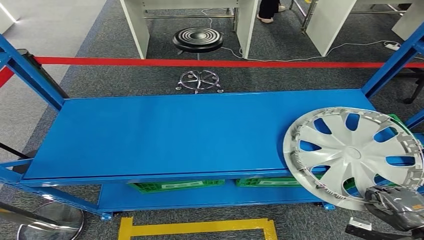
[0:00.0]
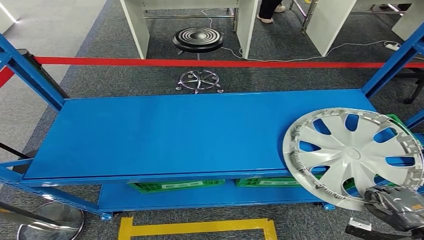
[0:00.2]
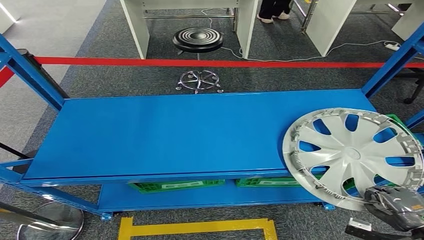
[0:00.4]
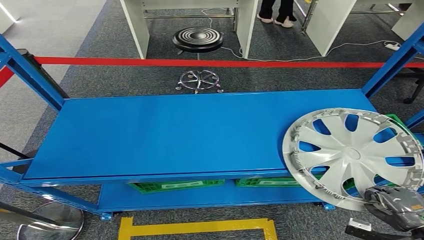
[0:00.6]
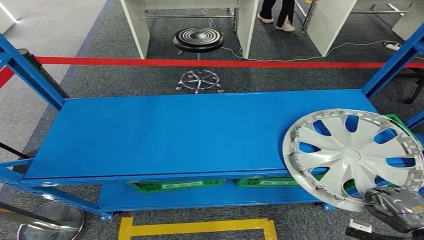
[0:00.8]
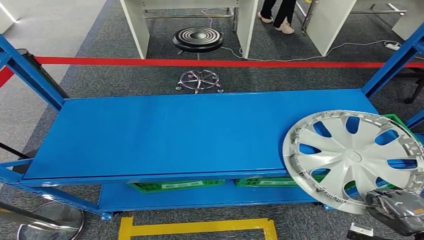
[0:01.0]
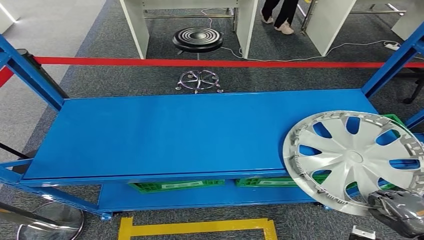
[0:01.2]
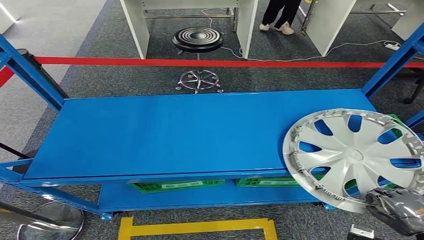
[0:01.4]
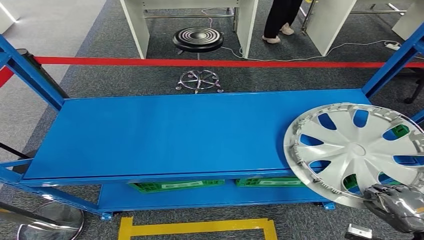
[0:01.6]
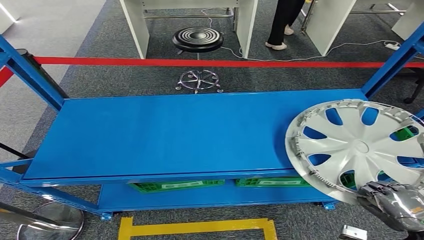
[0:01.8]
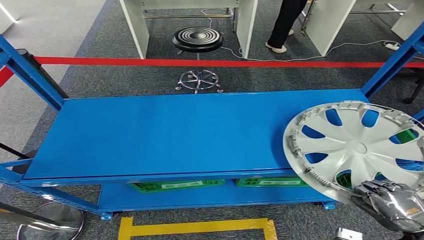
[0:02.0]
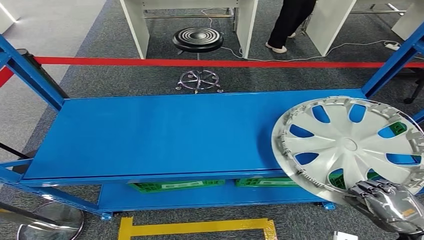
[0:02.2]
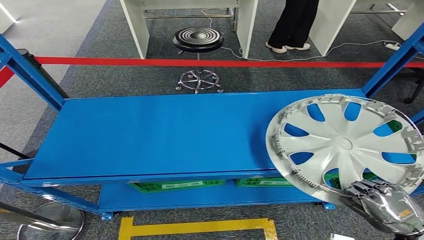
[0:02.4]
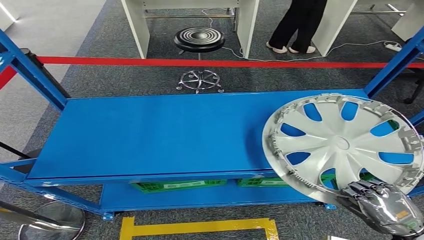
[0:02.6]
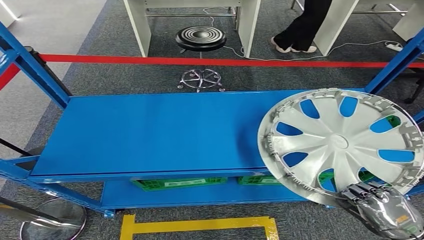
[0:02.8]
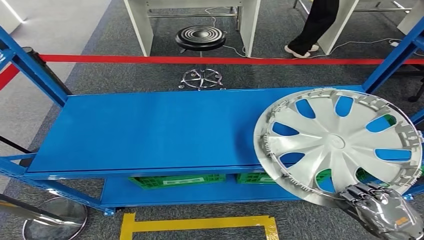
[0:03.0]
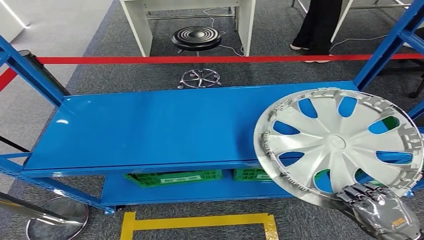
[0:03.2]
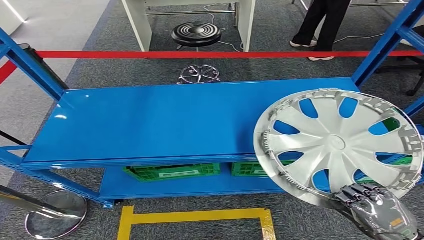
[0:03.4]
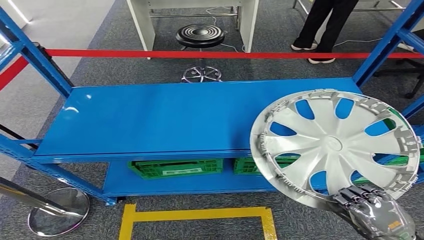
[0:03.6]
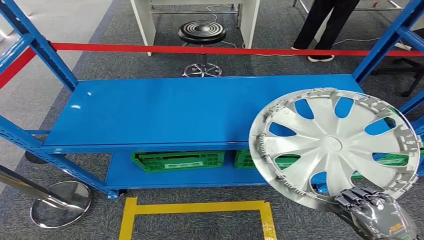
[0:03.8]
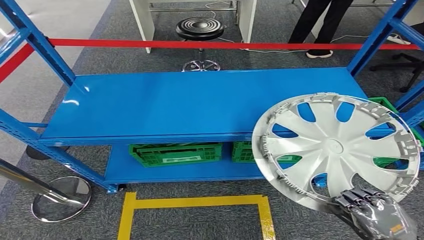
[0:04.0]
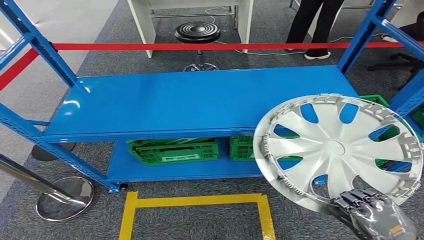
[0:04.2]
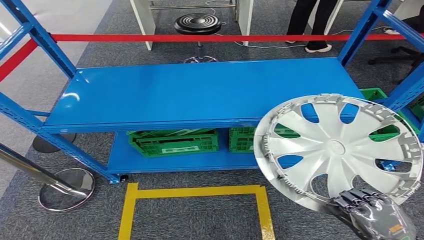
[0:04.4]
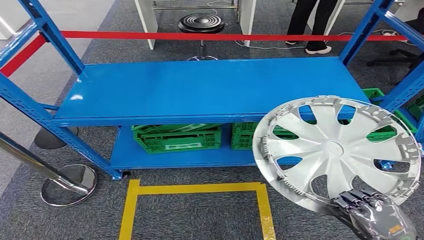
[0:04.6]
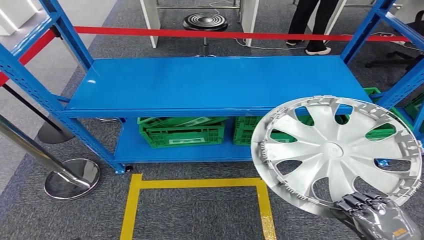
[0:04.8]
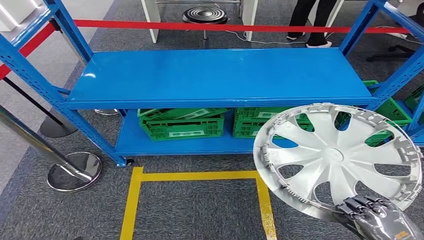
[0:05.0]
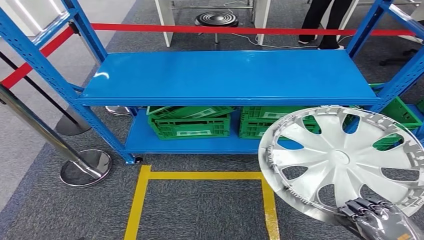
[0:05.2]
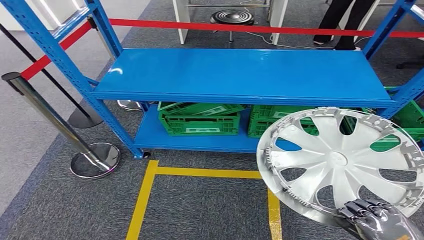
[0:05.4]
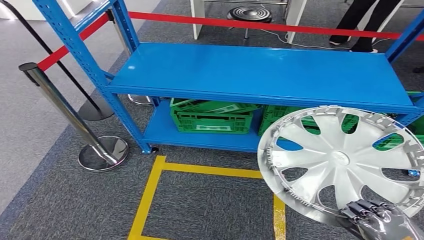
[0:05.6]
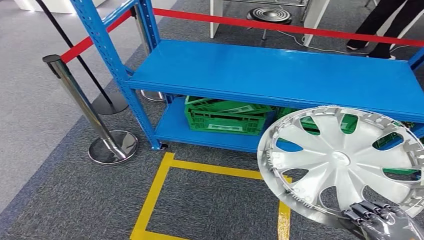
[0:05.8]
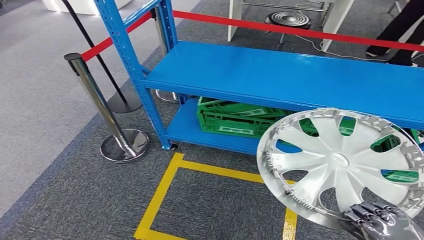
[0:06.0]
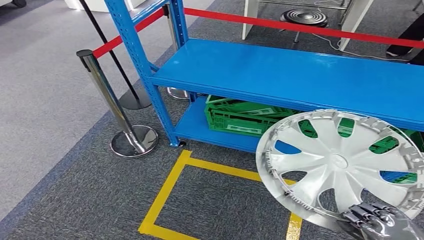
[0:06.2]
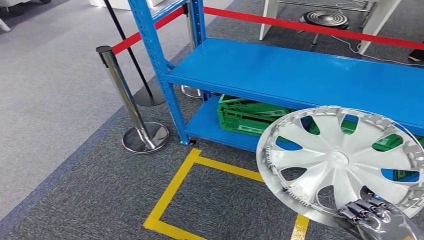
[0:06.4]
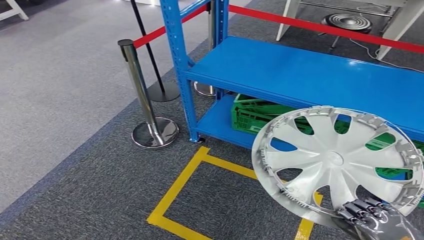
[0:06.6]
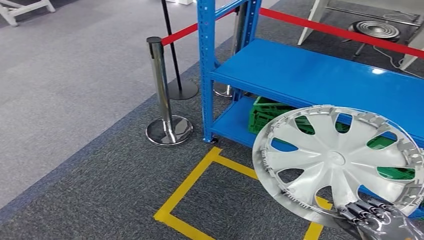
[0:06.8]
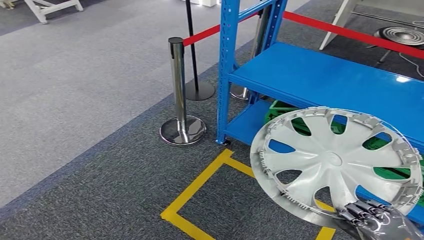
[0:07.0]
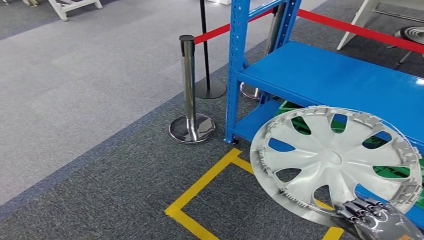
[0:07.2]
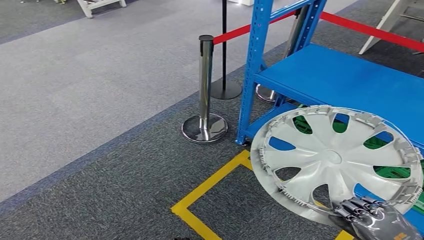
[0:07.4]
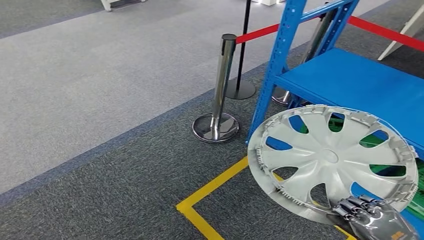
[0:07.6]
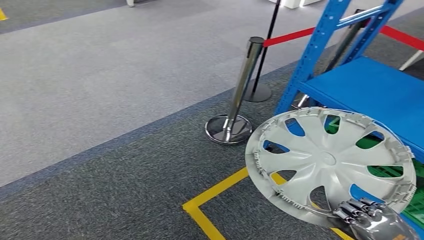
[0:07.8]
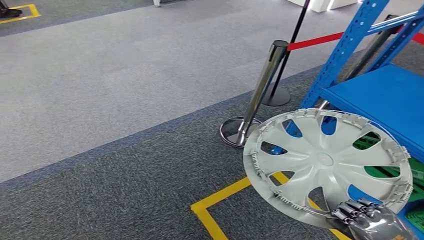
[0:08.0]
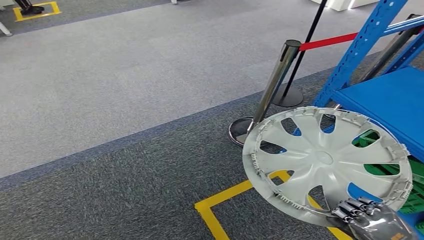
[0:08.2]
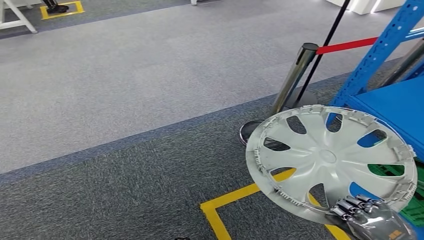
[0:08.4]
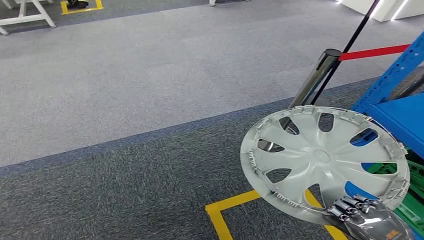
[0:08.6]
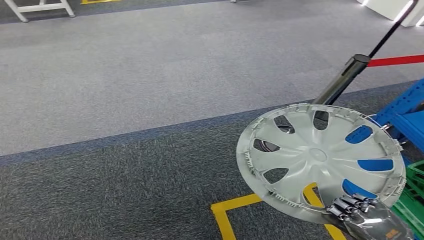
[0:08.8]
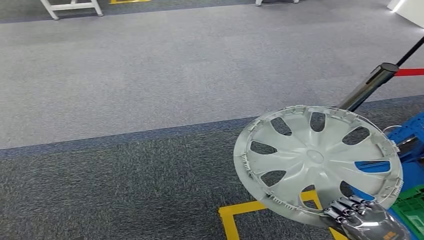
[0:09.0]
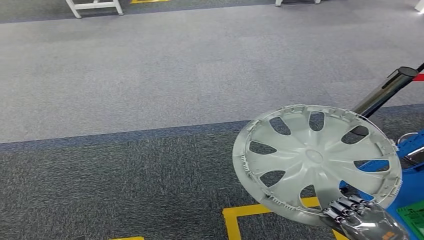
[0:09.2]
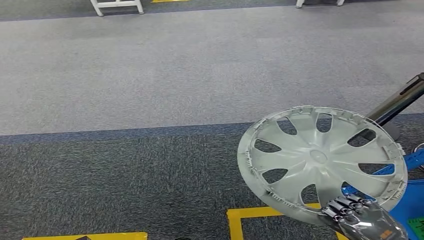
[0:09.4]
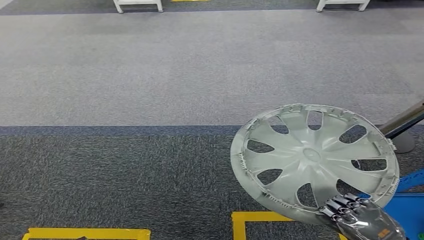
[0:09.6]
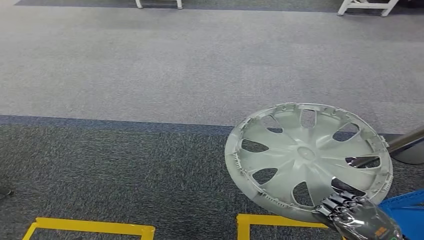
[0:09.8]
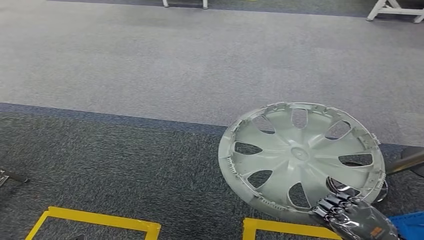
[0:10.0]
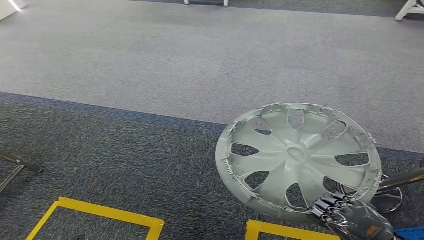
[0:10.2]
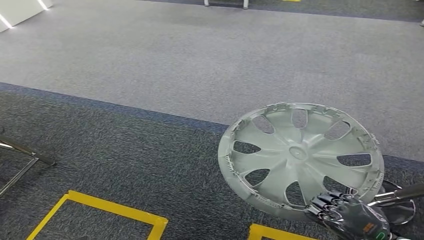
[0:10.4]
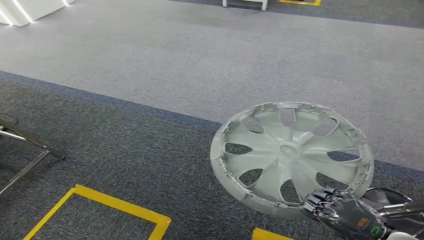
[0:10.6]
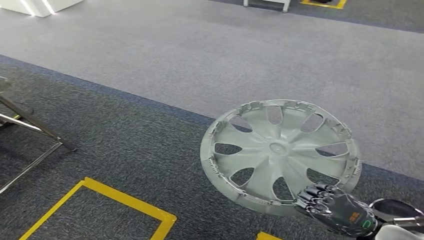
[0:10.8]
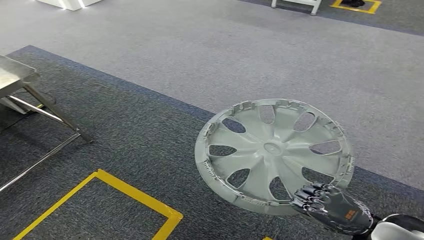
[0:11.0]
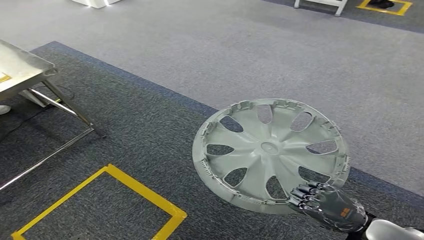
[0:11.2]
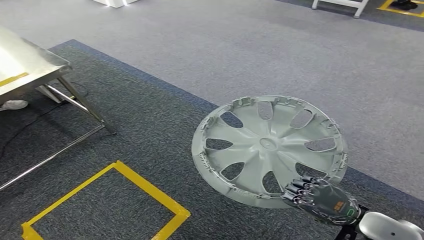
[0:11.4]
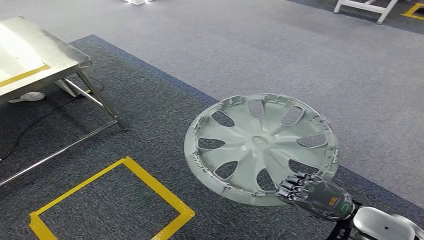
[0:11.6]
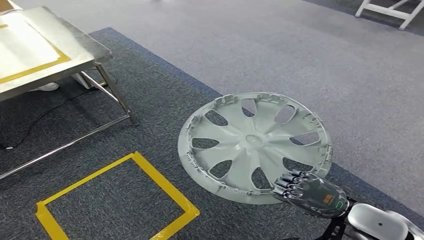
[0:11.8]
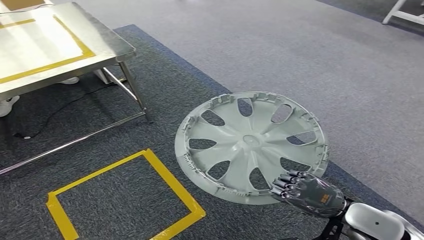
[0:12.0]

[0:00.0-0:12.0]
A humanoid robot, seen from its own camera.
Step, 0:00.0 to 0:05.6: Pick up the small component from the shelf.
0:00.0 to 0:01.6: The hands stay close to where they were, moving slightly.

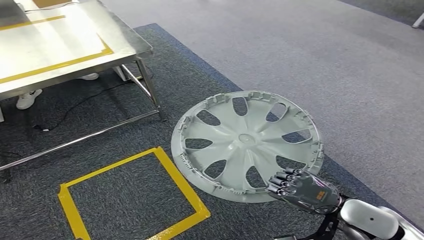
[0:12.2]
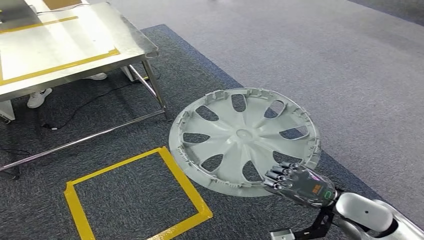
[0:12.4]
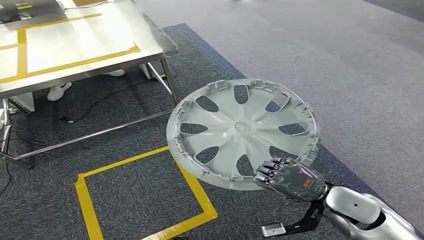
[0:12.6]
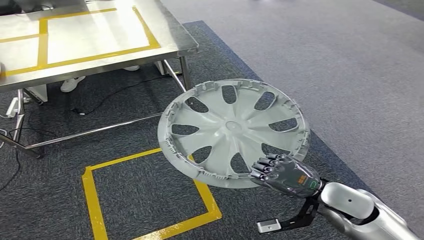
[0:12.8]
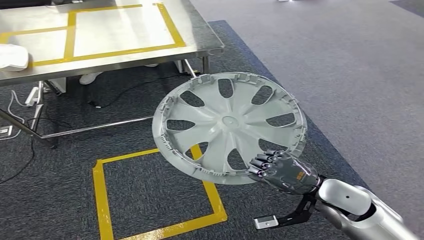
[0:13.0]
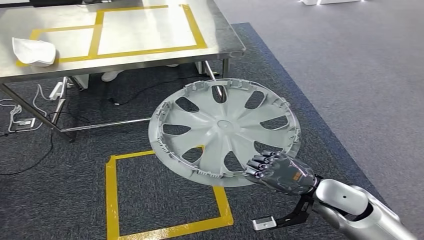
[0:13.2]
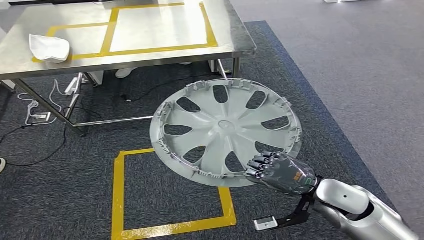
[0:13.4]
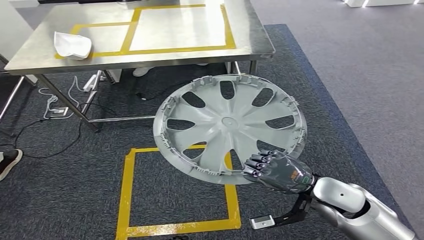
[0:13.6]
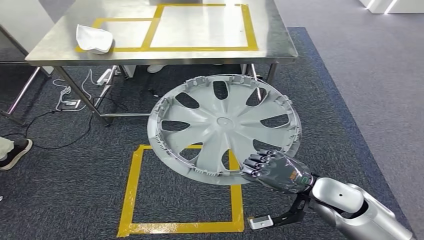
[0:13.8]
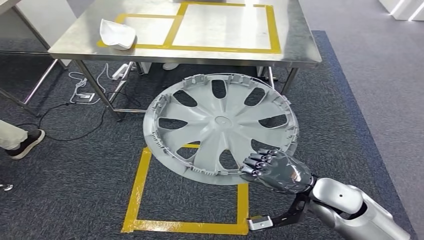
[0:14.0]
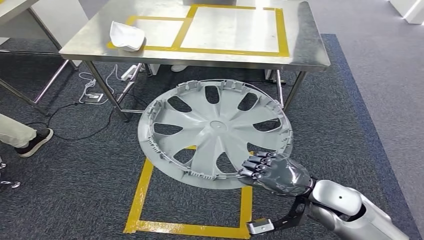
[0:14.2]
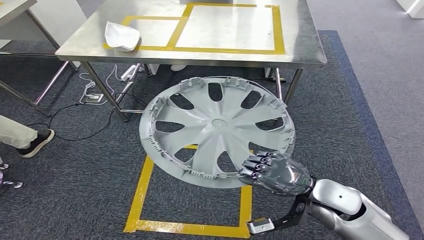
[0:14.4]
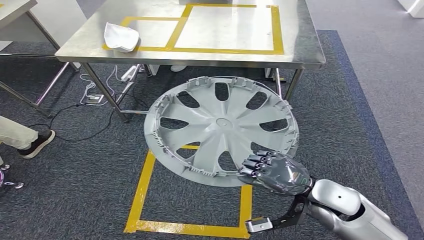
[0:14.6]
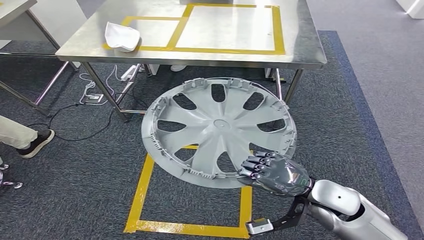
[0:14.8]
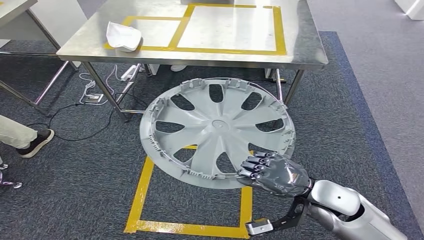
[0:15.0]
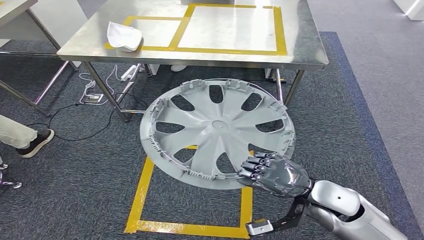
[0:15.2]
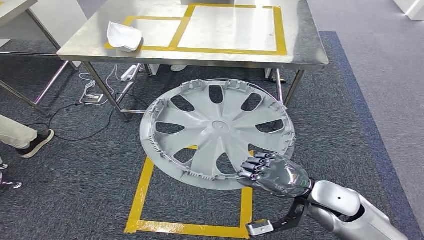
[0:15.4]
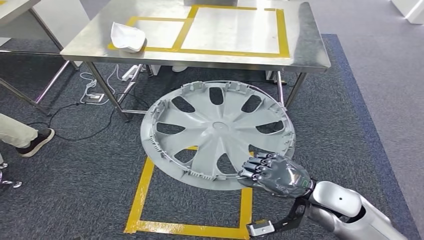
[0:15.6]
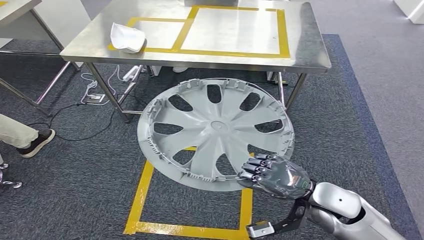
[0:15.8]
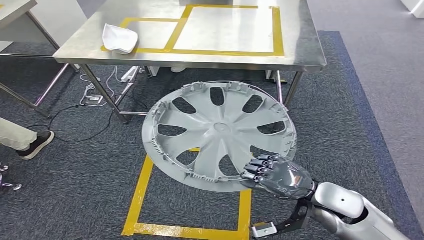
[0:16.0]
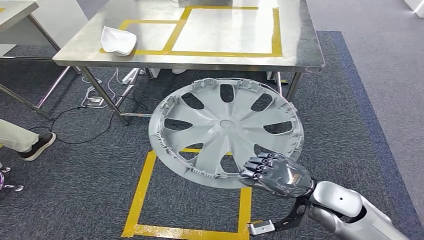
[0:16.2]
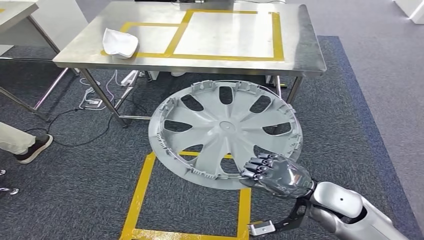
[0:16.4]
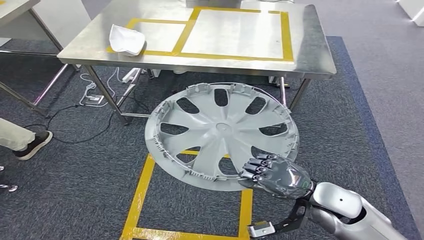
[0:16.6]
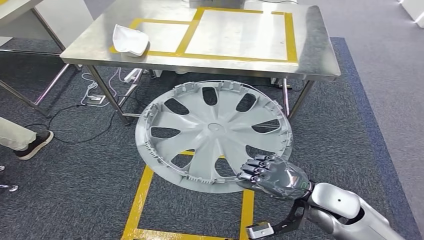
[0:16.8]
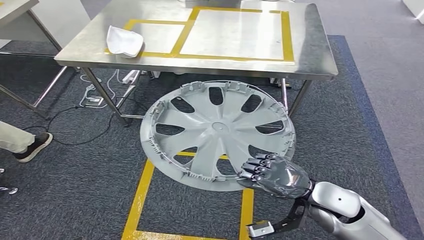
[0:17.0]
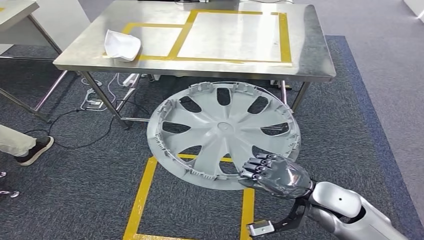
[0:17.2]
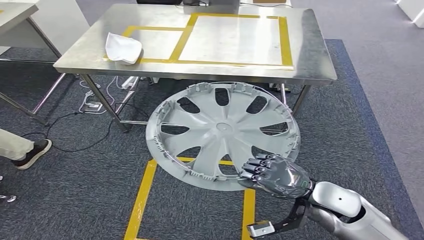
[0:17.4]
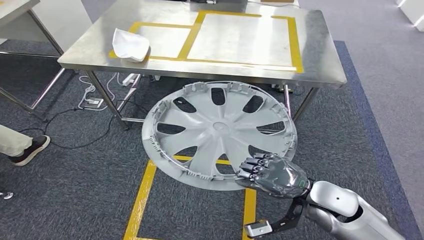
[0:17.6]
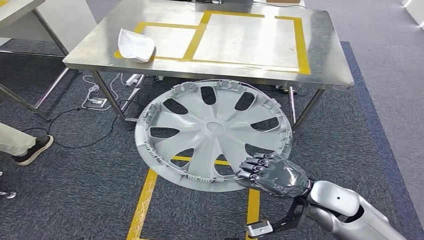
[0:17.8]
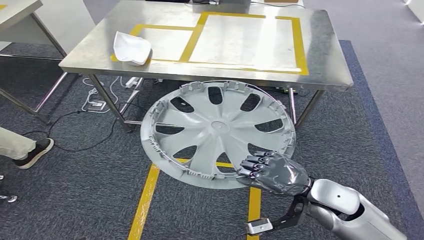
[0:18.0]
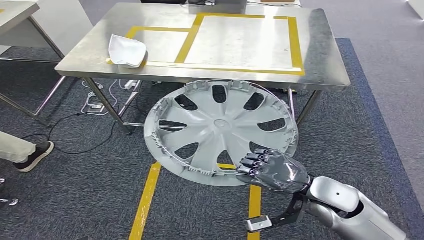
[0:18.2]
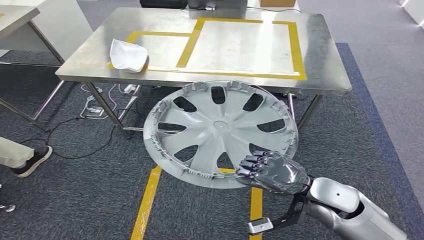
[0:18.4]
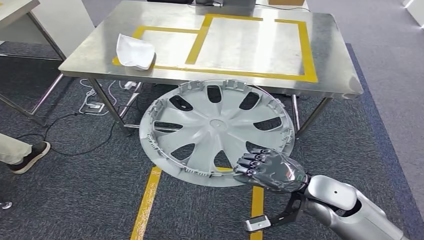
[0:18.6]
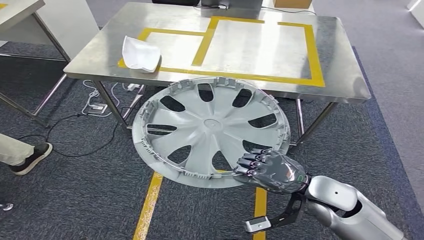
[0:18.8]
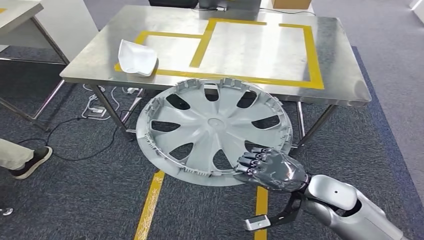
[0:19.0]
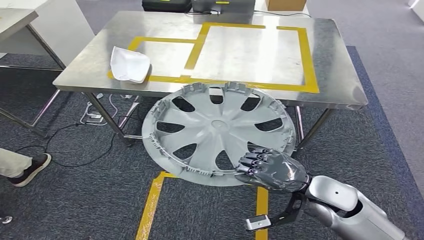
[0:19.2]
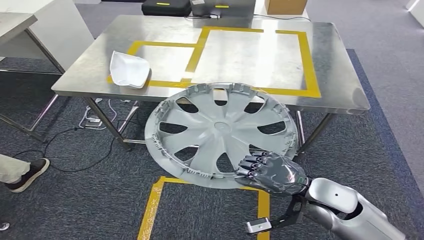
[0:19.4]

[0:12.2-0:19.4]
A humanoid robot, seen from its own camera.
Step, 0:12.2 to 0:18.2: Move the small component to the workbench.
